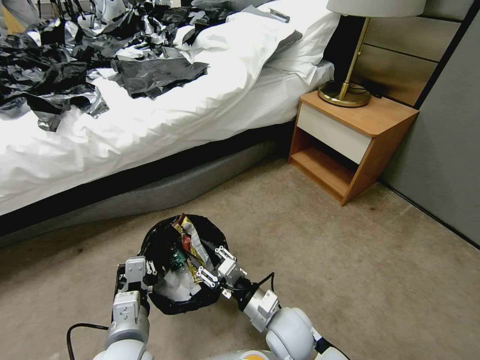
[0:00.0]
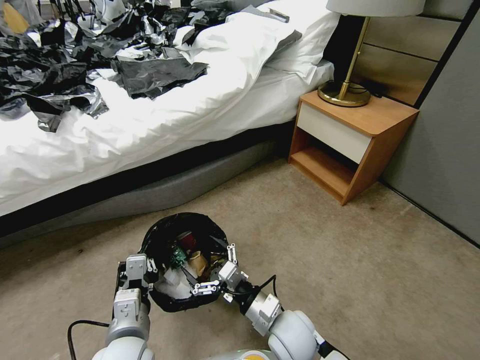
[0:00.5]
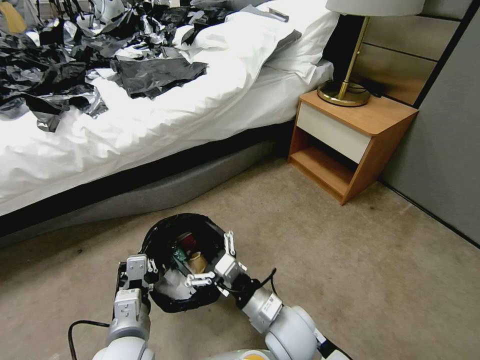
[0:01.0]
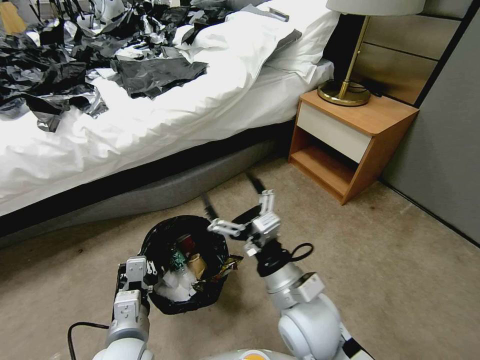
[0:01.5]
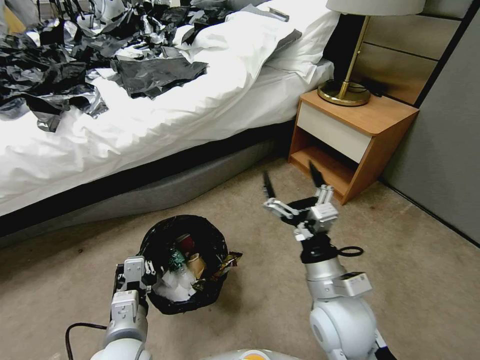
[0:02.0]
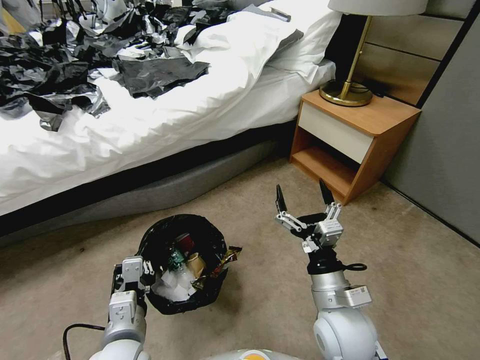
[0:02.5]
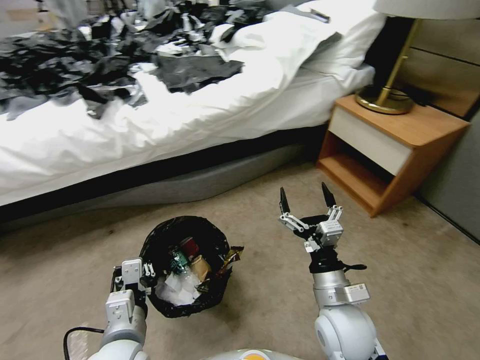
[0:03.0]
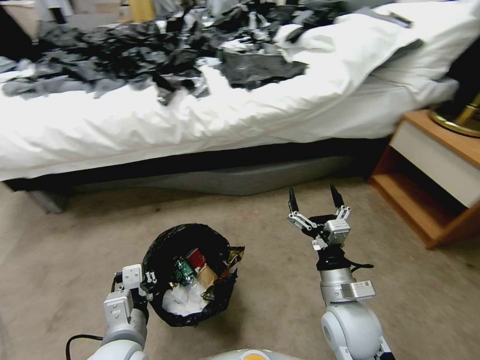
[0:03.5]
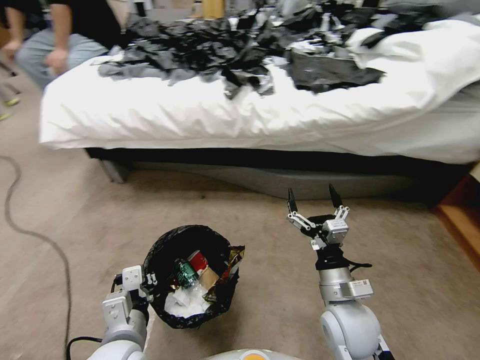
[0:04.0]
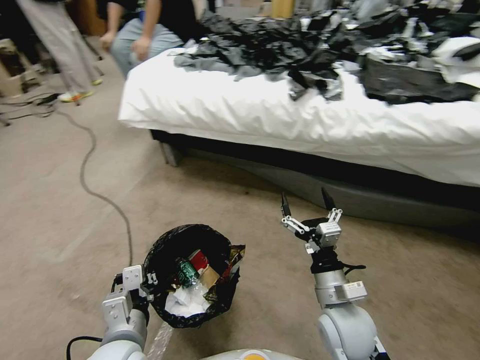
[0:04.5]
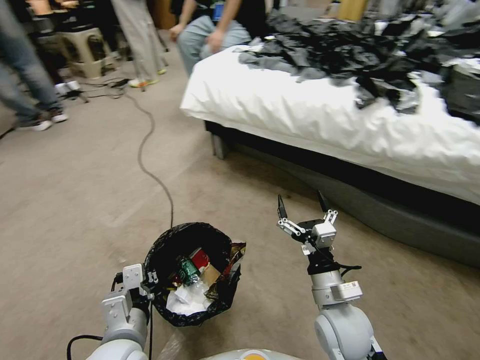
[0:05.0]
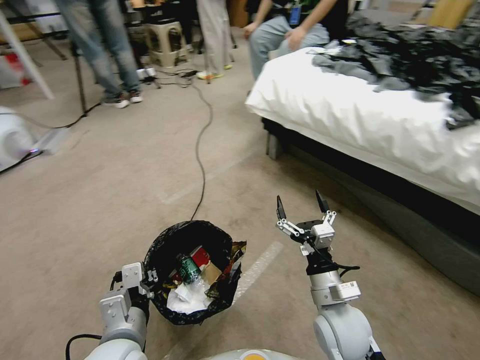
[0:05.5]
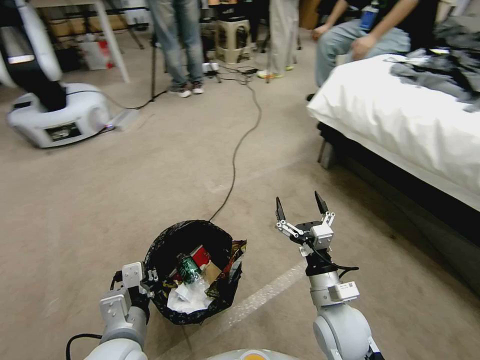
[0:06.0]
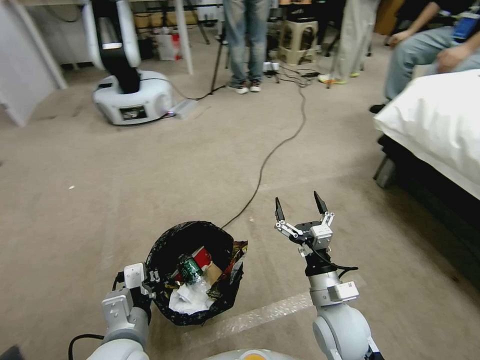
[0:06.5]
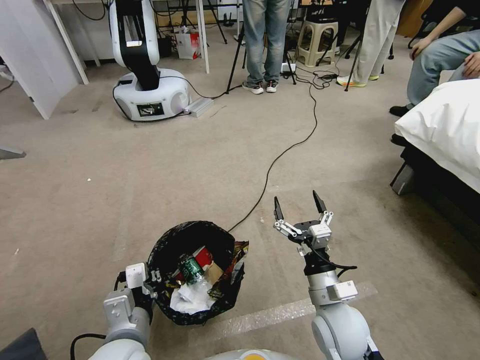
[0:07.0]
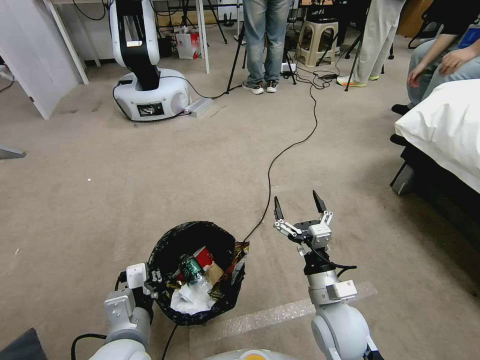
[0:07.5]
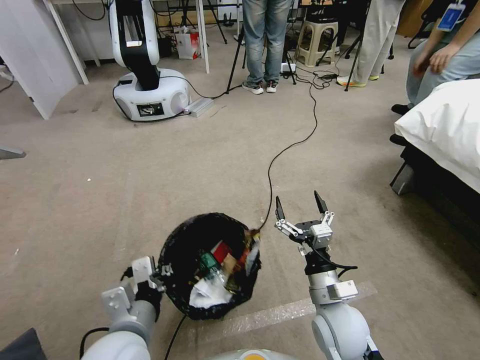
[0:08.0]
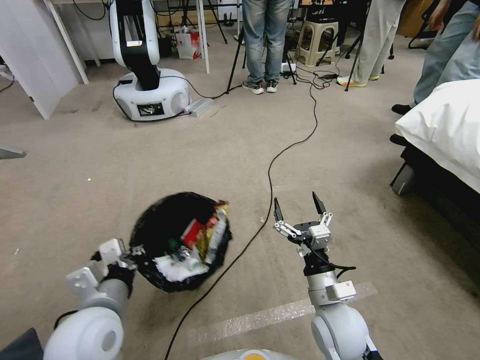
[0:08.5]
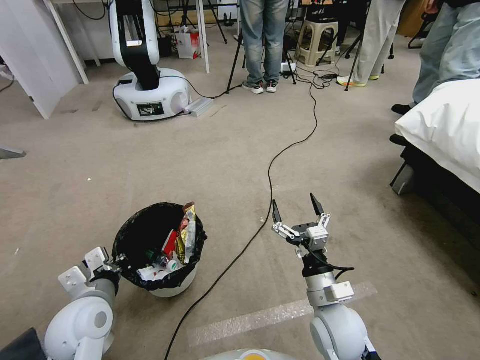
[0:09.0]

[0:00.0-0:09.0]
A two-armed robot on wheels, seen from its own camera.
Task of the whole recording: Pick up the trash bin, then pick up the garbage from the floor and place it into the trash bin.
0:00.0 to 0:02.0: The right gripper moves upward and to the right, about 15 cm, and opens up.
0:02.0 to 0:04.5: The right gripper goes some 10 cm downward.
0:07.0 to 0:09.0: The left gripper is displaced to the left and forward by about 10 cm.

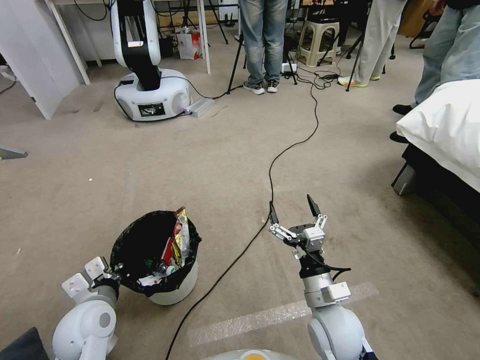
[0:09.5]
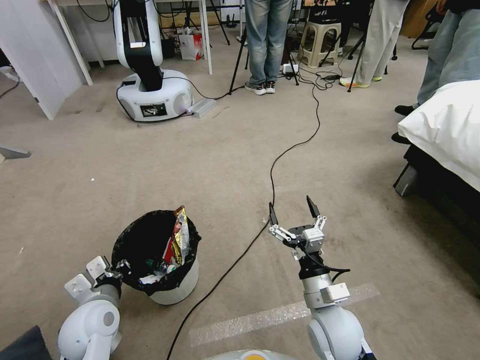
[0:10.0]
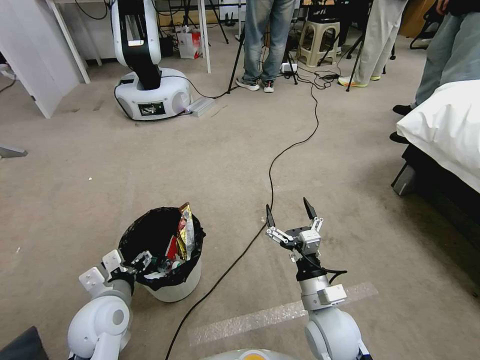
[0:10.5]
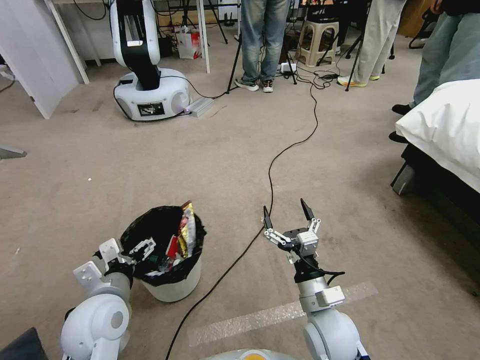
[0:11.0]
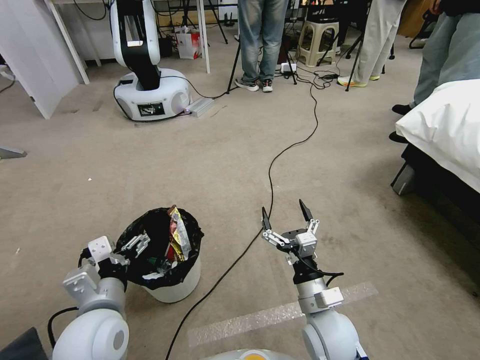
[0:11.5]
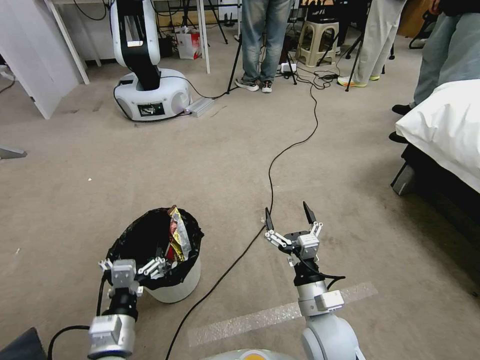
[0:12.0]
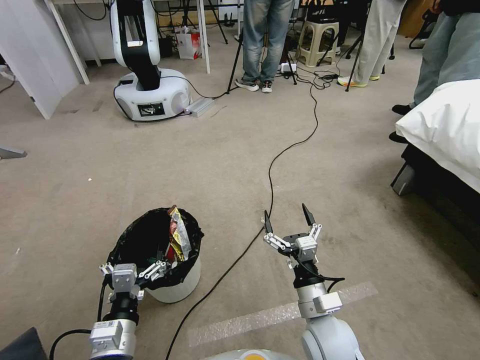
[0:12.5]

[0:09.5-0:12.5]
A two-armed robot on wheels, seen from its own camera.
Task of the whole recording: Pick up the trash bin, then pick up the garbage from the floor and place it into the trash bin.
0:09.5 to 0:11.0: The left gripper moves roughly 5 cm, and opens its fingers.
0:11.0 to 0:12.5: The left gripper is displaced backward by approximately 10 cm.
